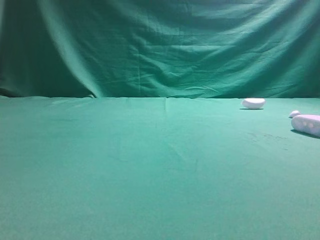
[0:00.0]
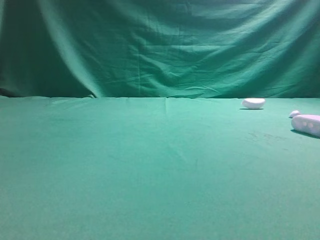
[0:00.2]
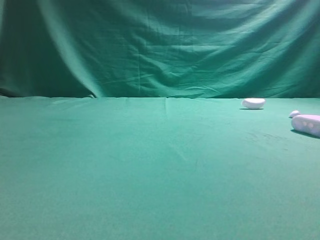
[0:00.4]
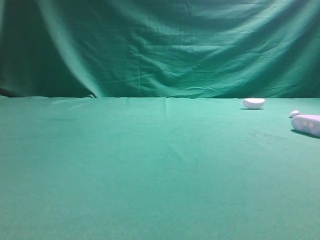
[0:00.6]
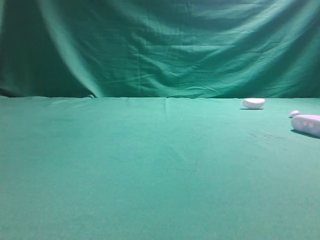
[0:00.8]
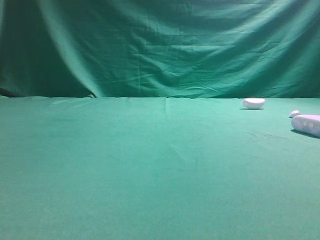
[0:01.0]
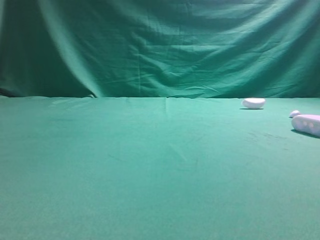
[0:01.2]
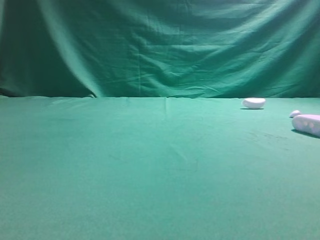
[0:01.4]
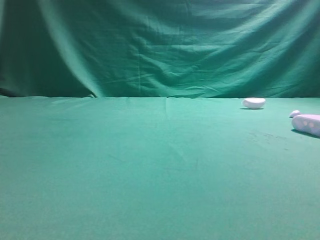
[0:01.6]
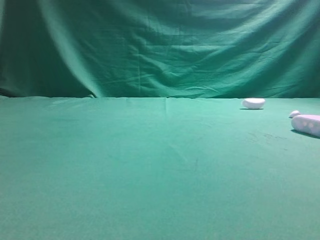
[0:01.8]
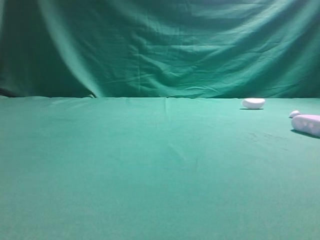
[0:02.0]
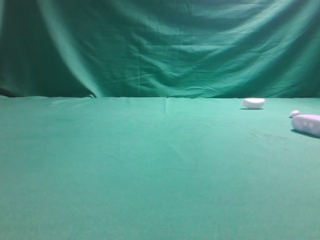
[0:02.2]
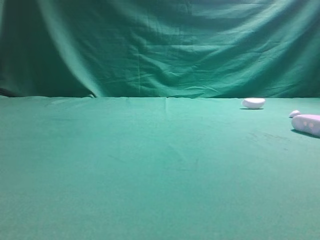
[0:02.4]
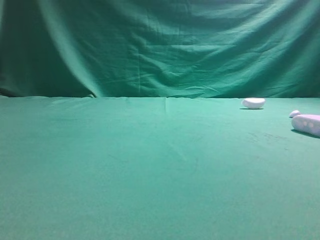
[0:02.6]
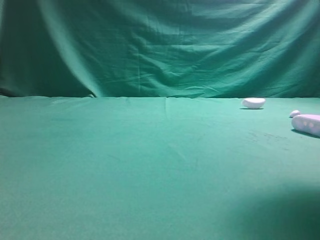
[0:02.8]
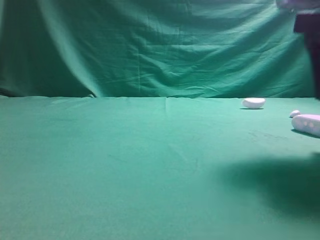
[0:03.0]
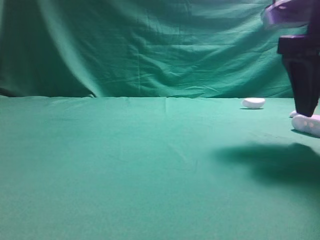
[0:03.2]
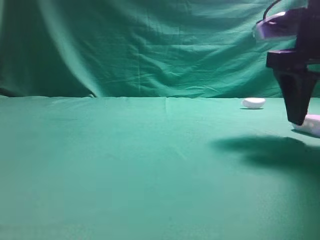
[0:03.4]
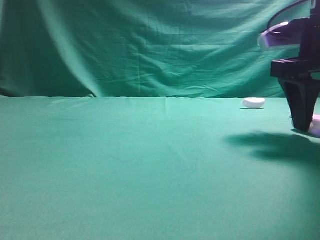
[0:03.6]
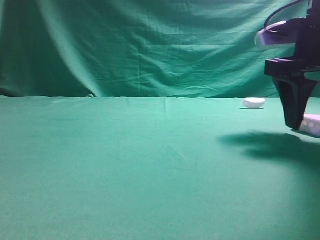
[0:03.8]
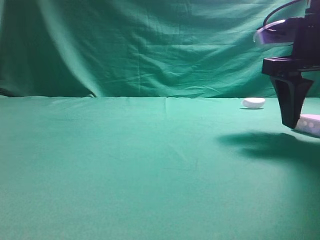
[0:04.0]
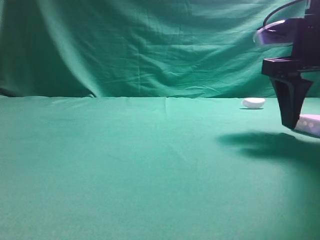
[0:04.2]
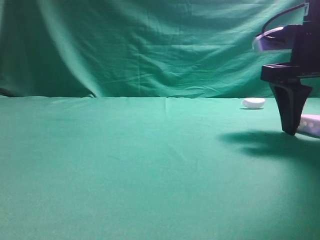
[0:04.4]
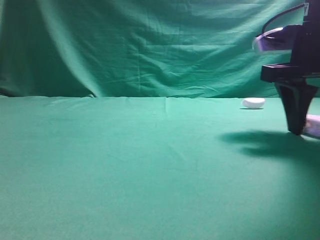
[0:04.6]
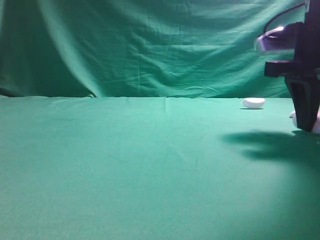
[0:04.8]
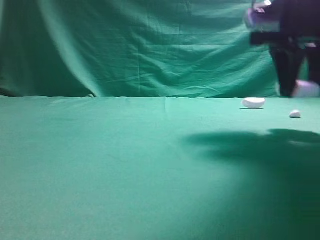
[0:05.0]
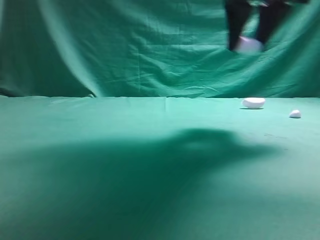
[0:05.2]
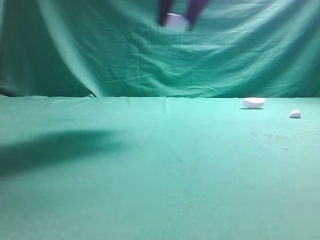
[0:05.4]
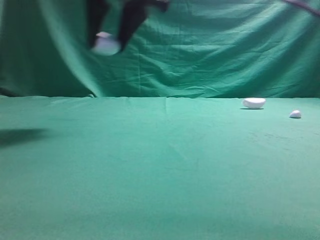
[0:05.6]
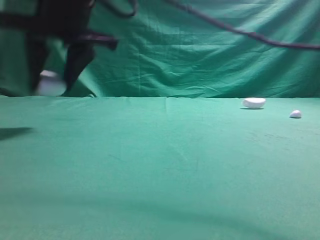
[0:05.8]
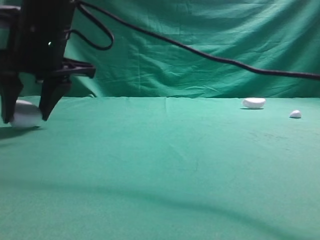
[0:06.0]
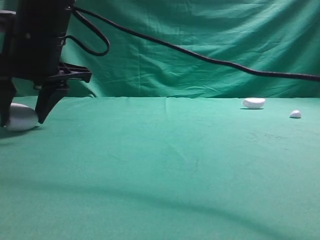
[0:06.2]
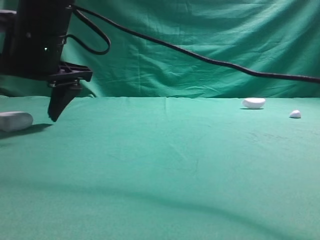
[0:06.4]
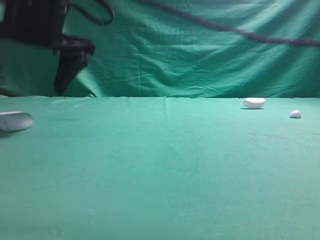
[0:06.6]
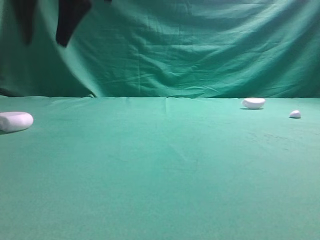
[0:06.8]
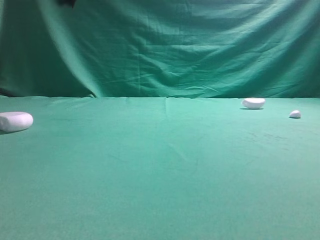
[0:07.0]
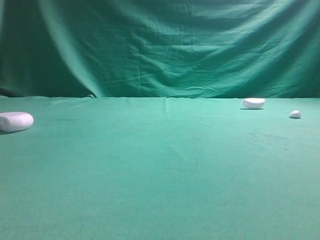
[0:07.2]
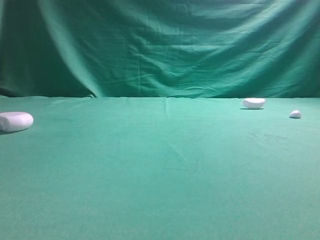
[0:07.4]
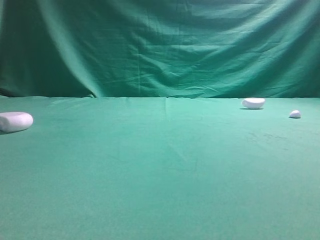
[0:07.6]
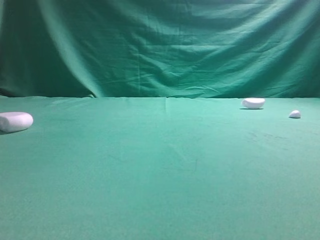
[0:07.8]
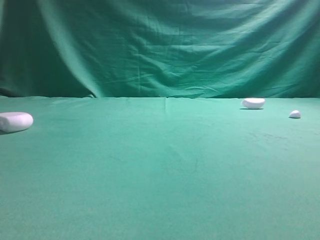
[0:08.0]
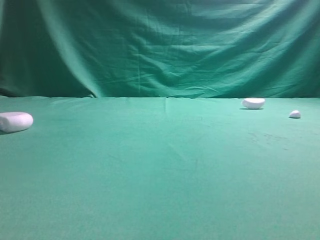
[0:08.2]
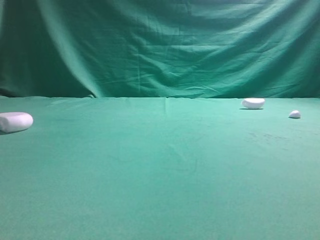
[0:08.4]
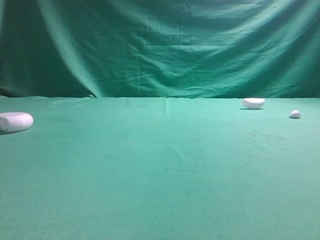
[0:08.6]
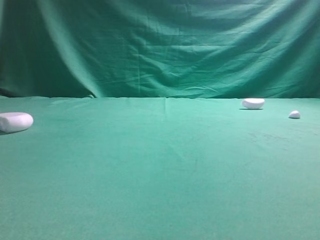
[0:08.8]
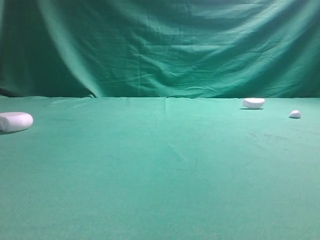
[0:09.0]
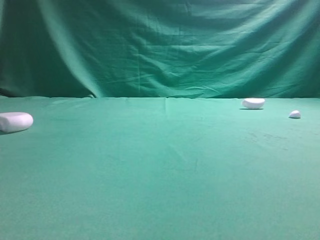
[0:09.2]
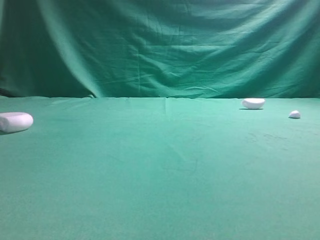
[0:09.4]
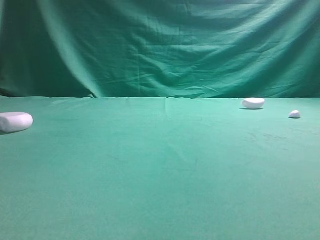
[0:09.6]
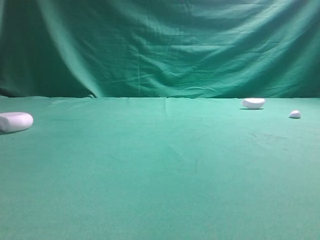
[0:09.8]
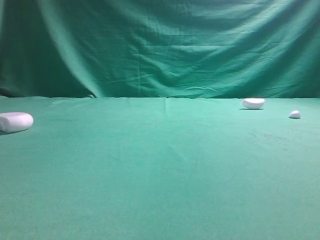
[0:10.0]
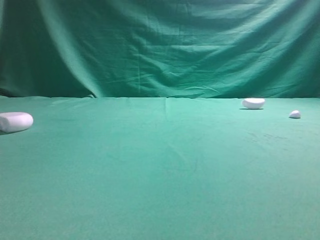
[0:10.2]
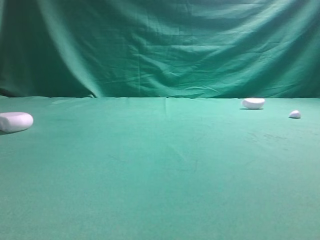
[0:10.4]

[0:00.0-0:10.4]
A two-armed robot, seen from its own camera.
Step, 0:00.0 to 0:04.0: Grasp the Bluetooth earphone case.
Step, 0:04.2 to 0:06.6: Place bluetooth earphone case on the left side of the table.
